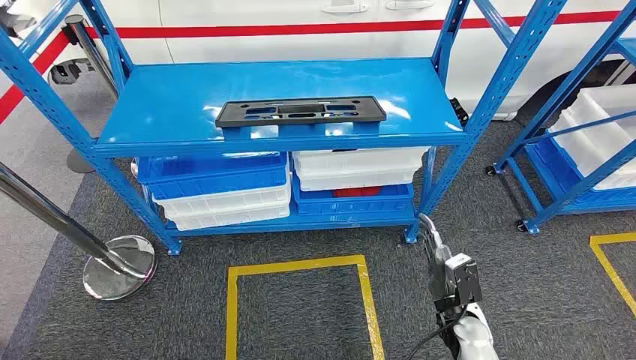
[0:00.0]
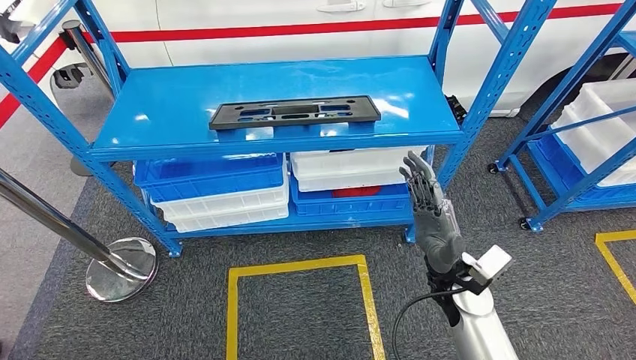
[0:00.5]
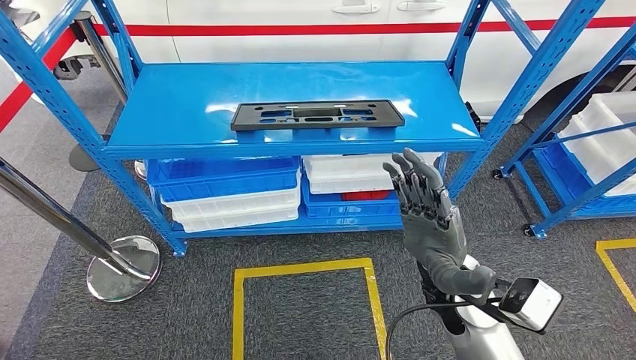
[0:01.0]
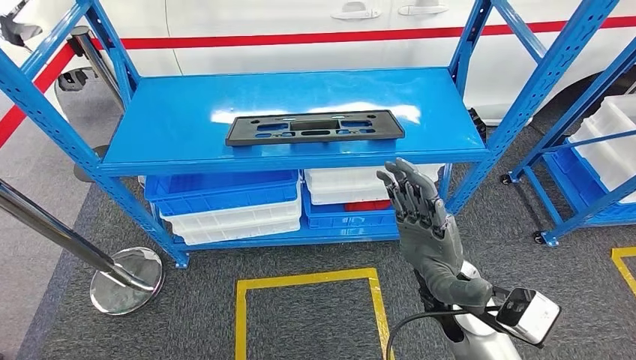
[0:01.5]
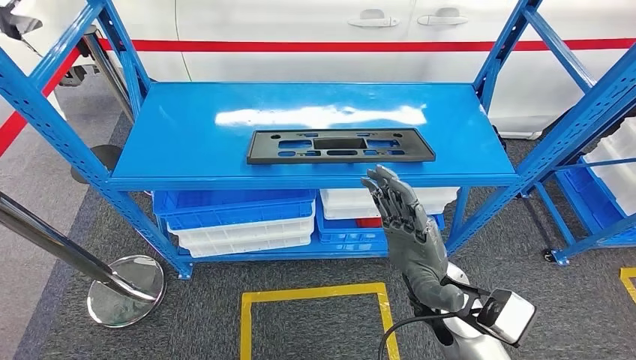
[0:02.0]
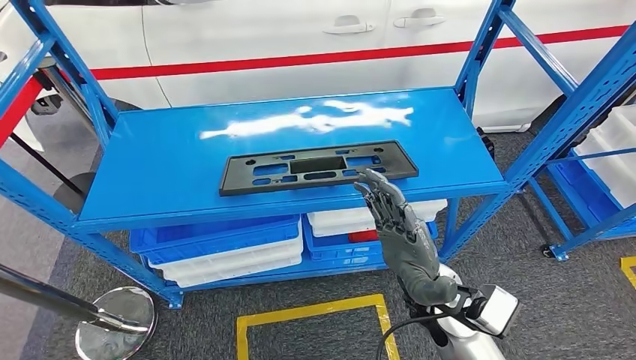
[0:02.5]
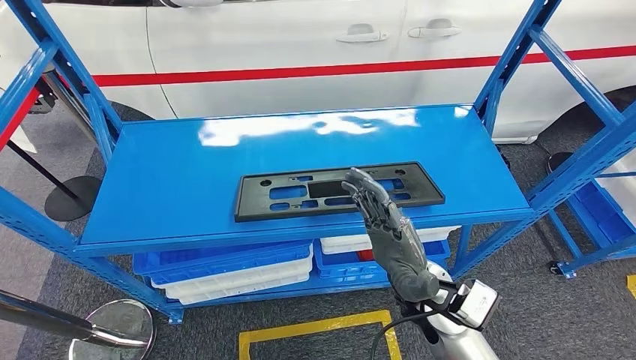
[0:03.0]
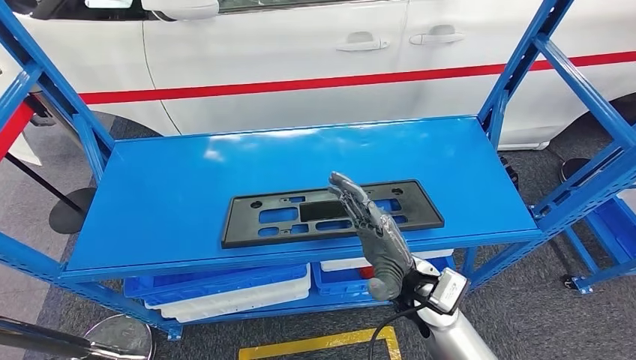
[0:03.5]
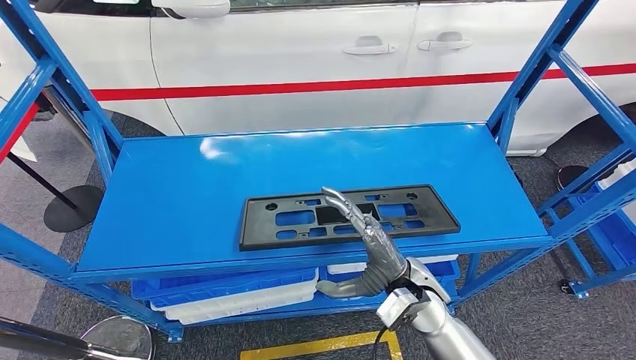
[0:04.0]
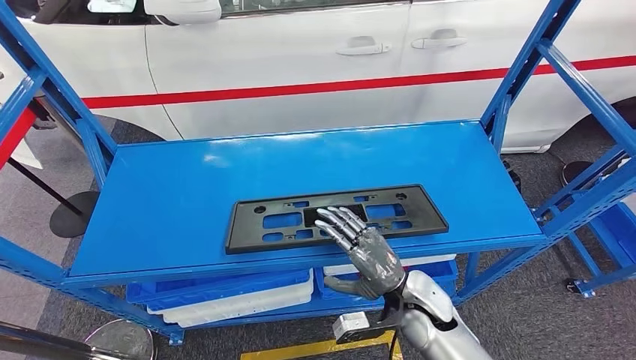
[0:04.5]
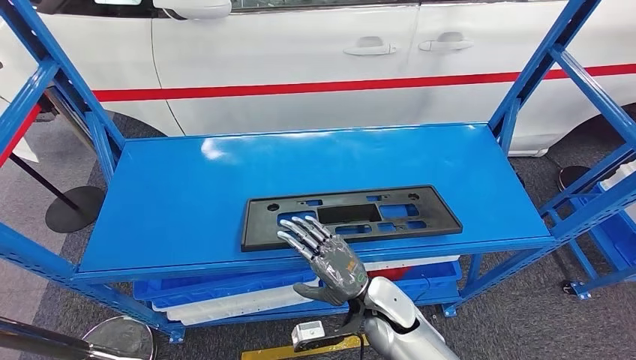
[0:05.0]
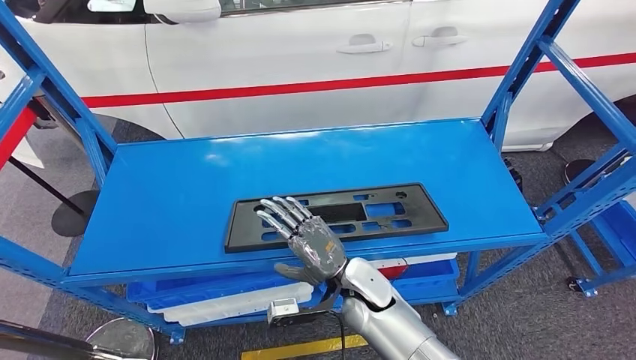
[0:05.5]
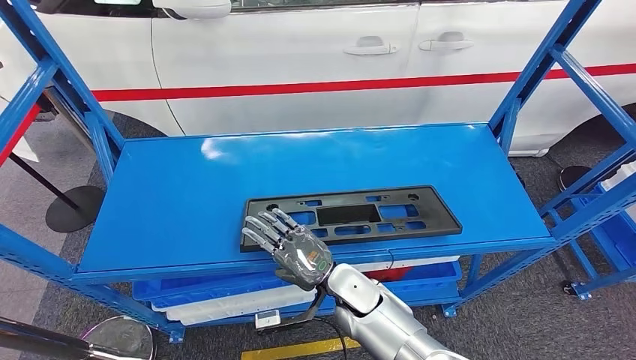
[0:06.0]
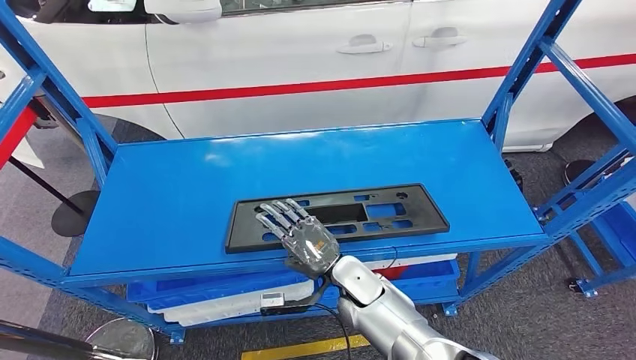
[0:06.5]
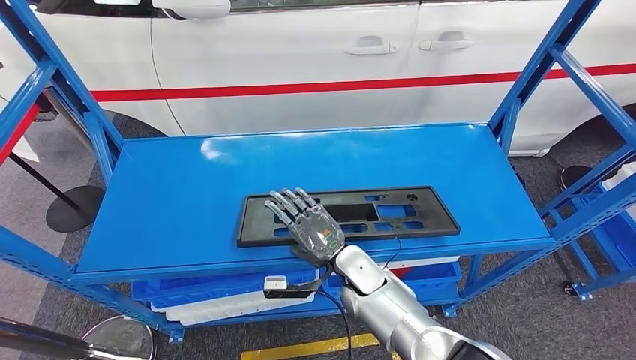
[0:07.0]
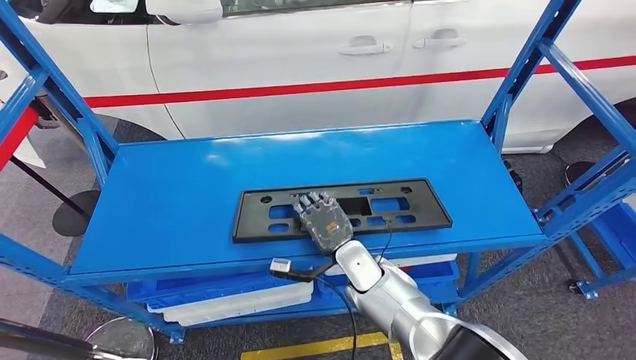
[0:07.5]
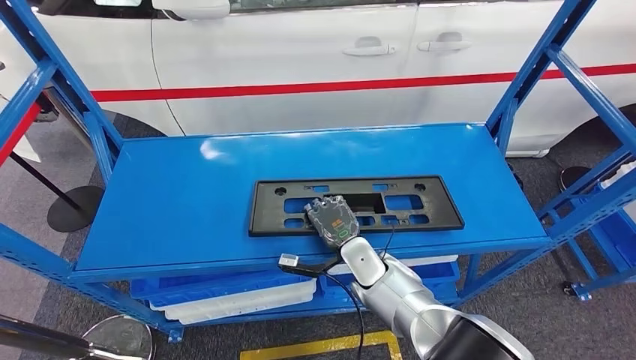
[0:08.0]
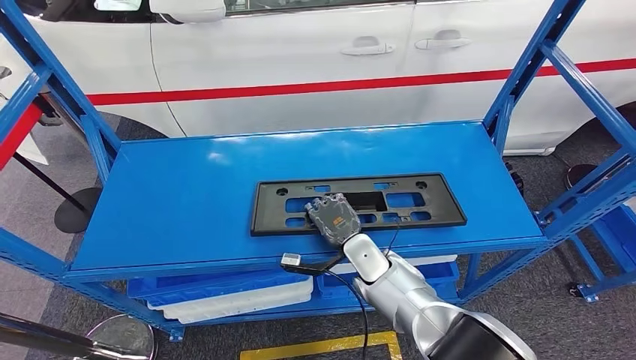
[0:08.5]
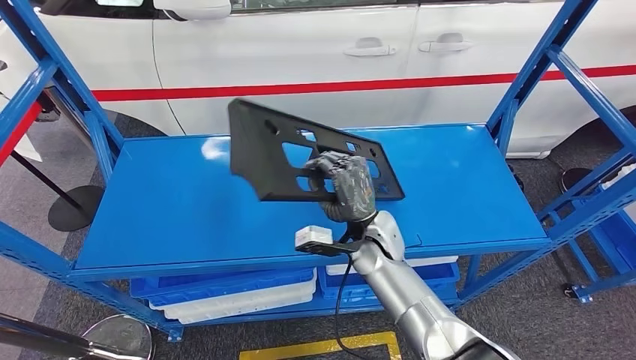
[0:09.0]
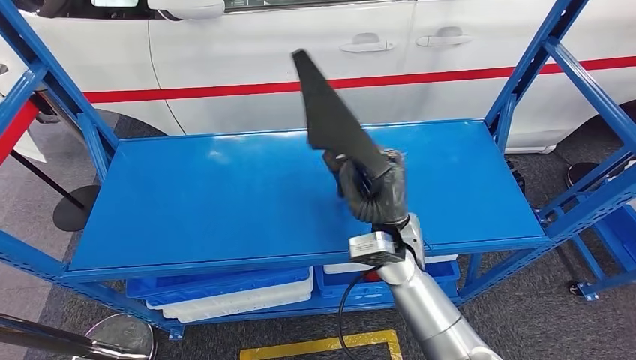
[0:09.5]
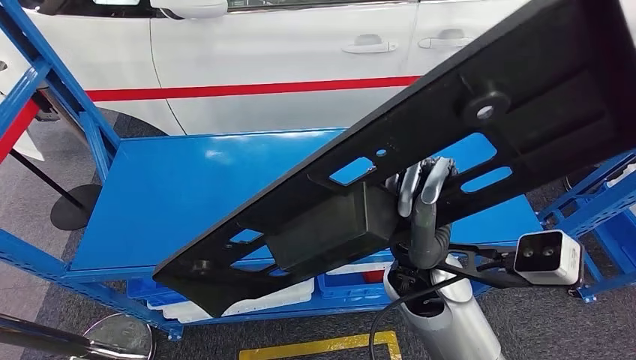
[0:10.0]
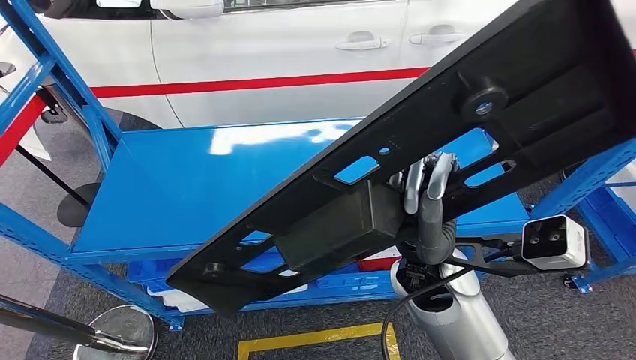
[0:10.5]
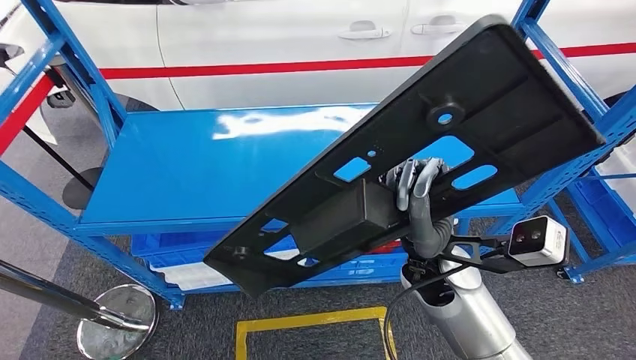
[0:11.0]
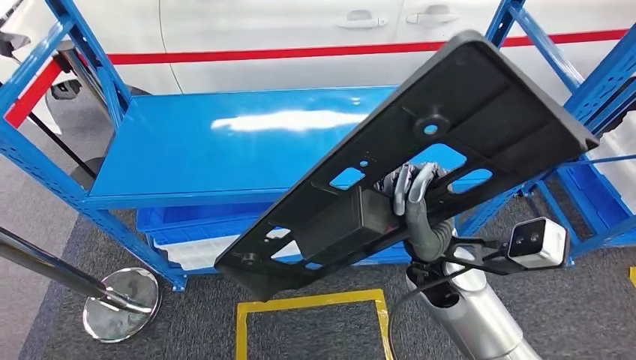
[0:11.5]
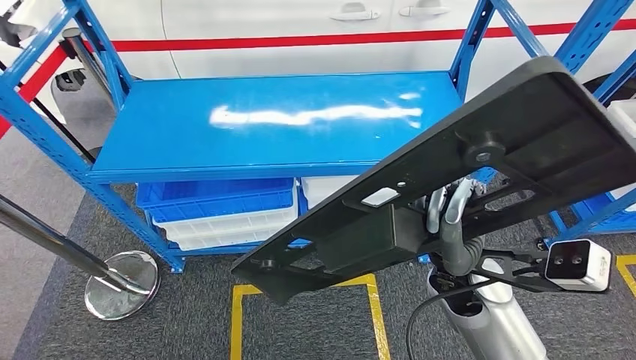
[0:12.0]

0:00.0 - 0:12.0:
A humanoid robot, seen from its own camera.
Step, 0:00.0 - 0:09.0: Pick up the large material from the shelf.
0:04.0 - 0:06.0: The right hand shifts about 10 cm to the left and downward.
0:06.0 - 0:08.0: The right hand is displaced forward by roughly 5 cm.

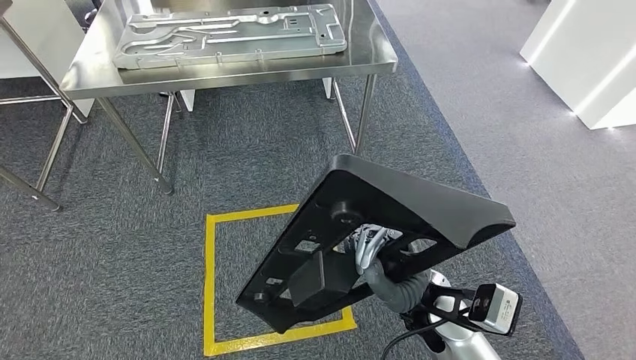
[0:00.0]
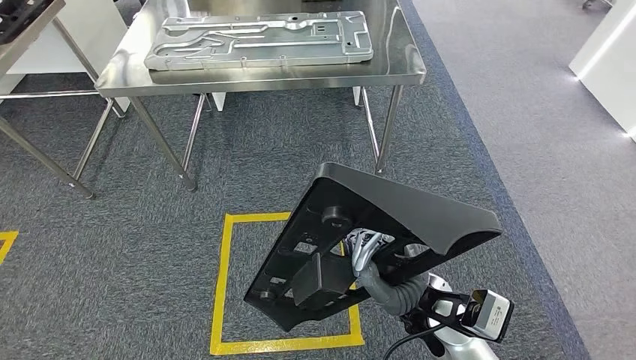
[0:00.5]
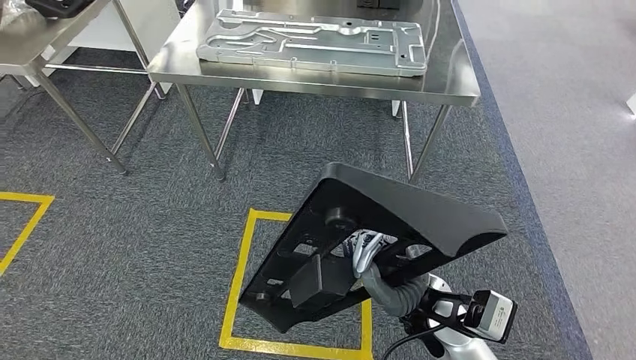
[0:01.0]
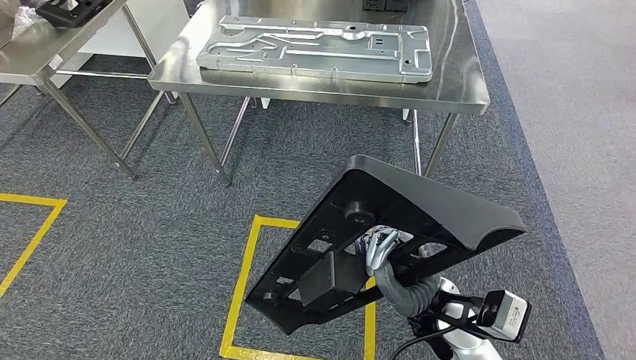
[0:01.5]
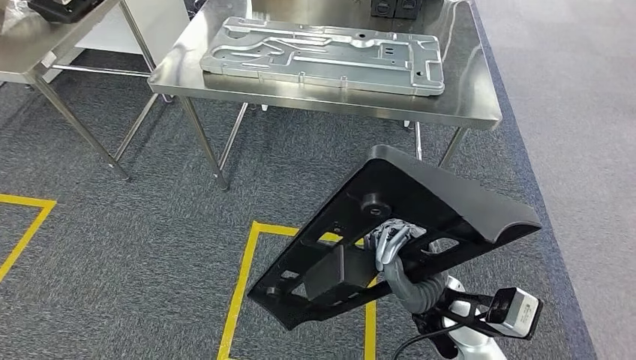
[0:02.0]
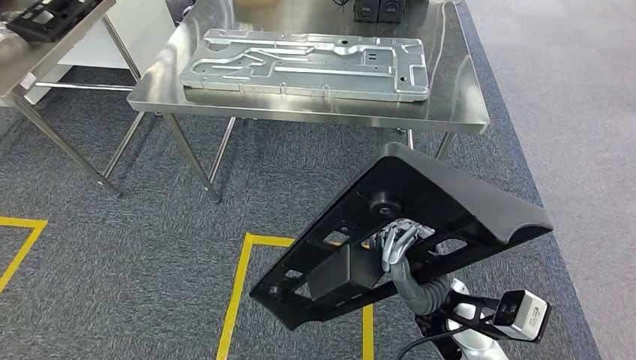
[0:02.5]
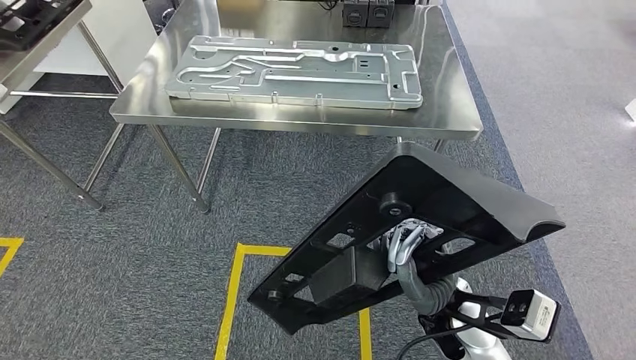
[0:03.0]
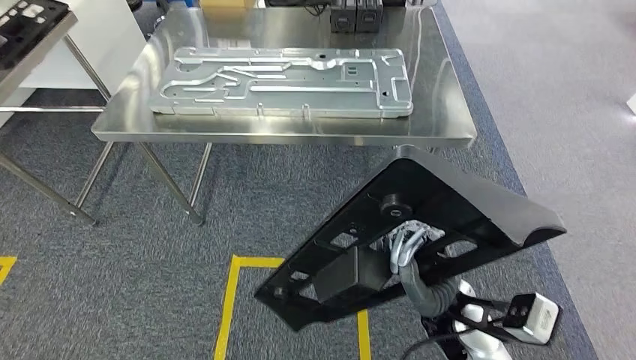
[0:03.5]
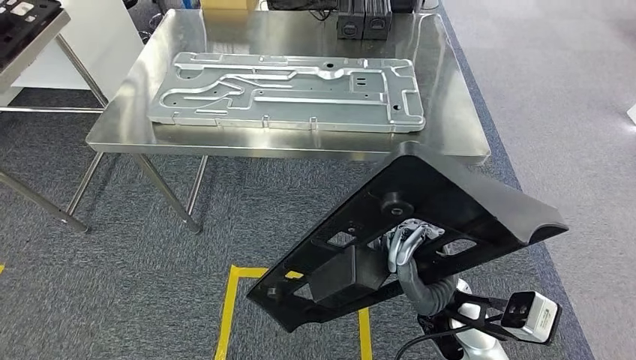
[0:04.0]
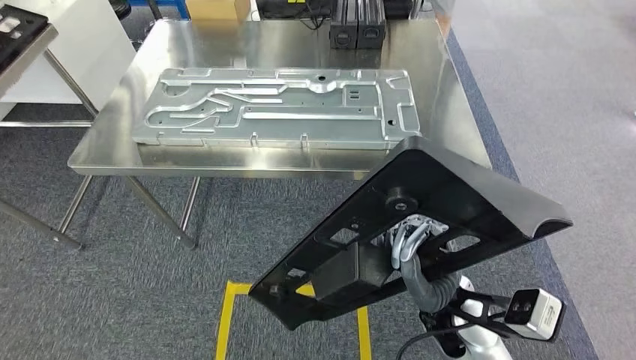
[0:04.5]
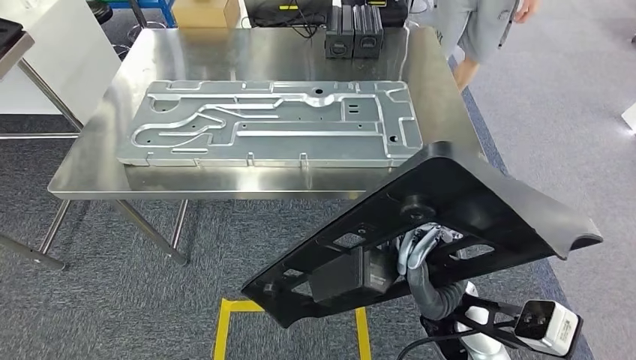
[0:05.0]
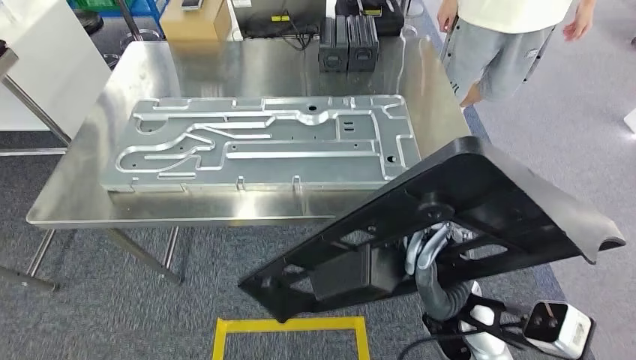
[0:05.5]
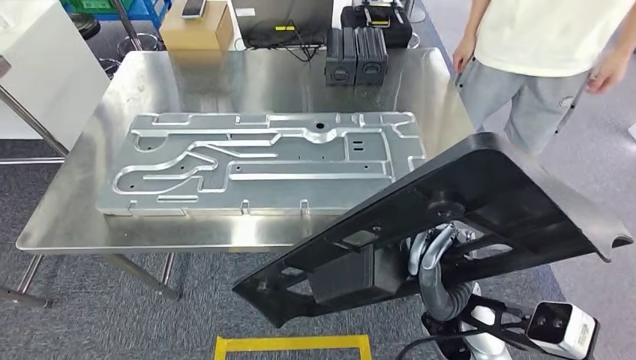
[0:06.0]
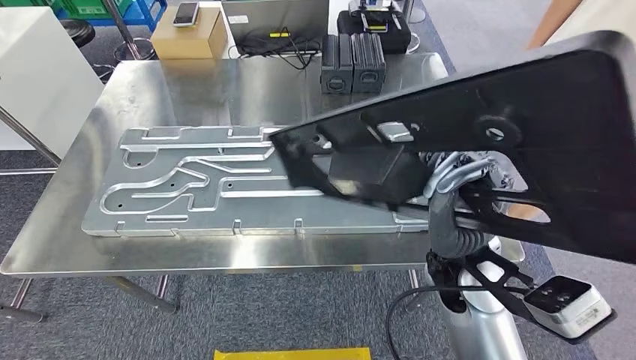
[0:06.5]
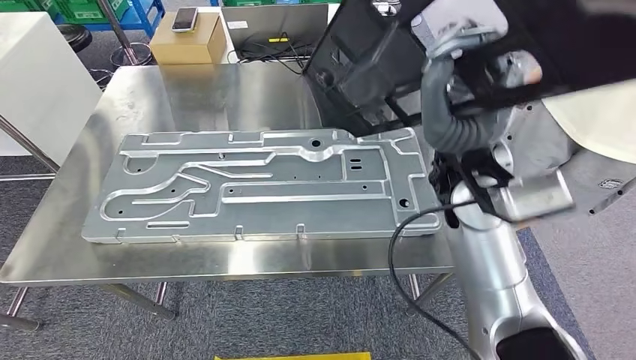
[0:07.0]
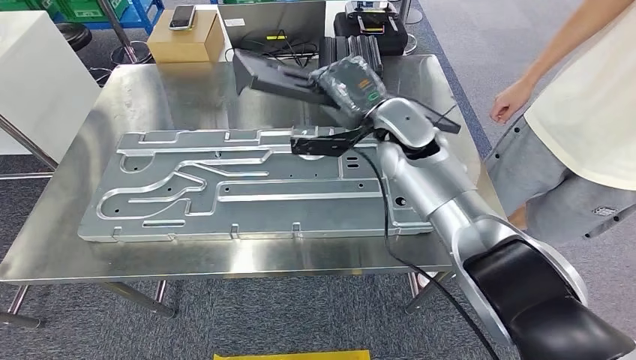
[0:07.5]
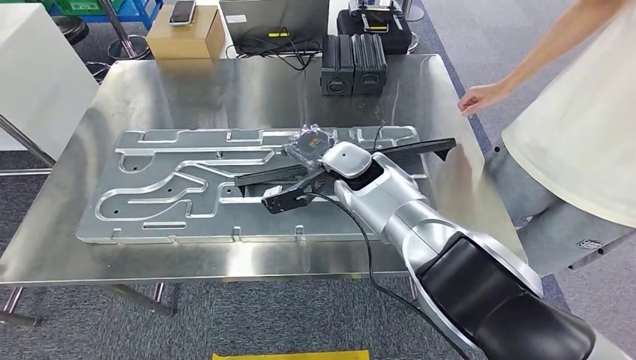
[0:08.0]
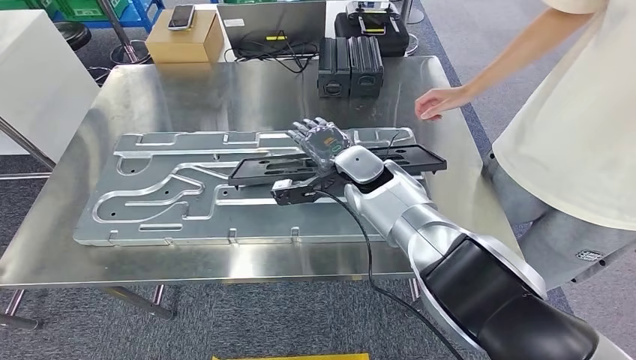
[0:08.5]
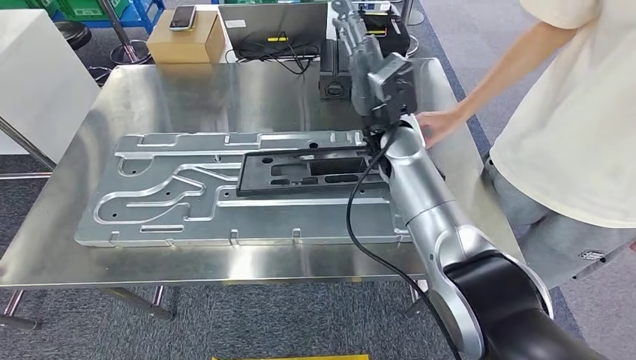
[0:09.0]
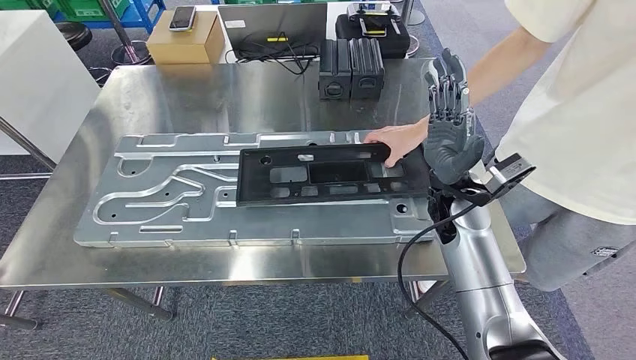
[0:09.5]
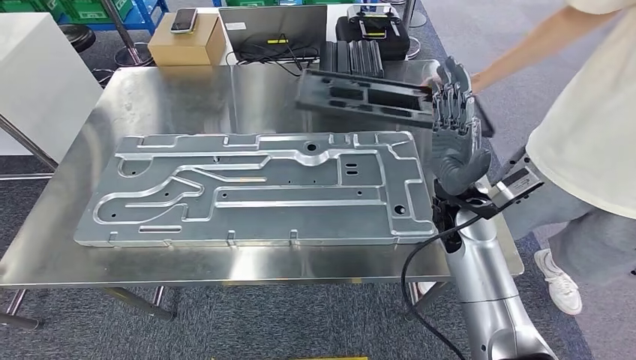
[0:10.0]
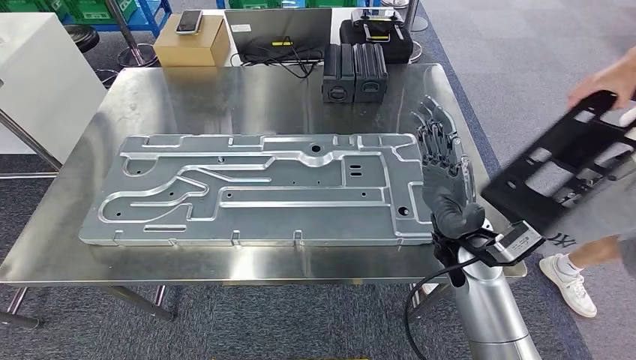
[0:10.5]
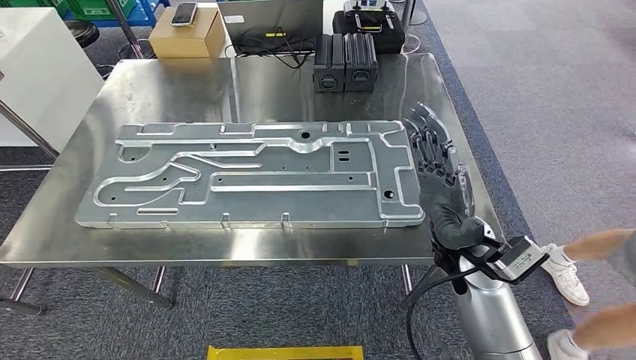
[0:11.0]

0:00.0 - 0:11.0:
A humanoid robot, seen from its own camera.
Step, 0:00.0 - 0:05.5: Move the large material to the workbench.
